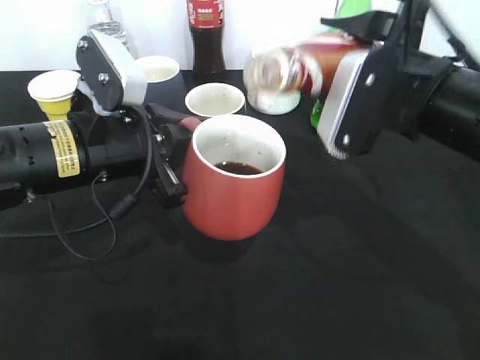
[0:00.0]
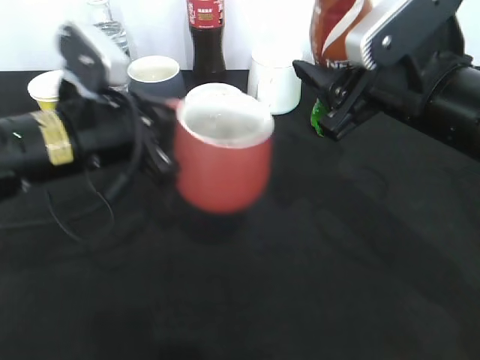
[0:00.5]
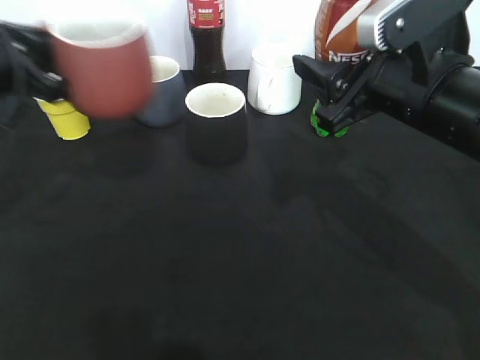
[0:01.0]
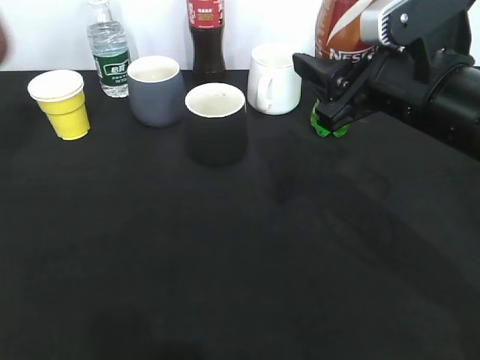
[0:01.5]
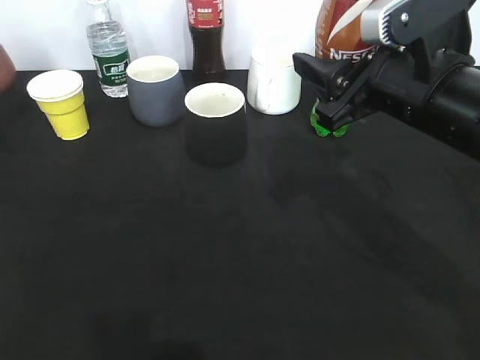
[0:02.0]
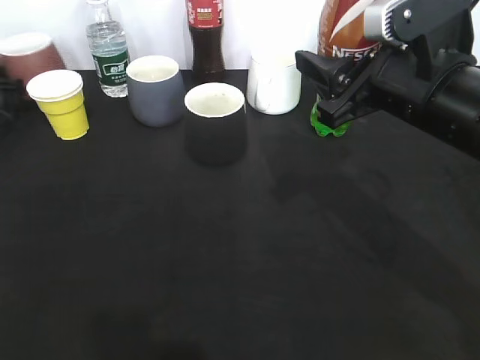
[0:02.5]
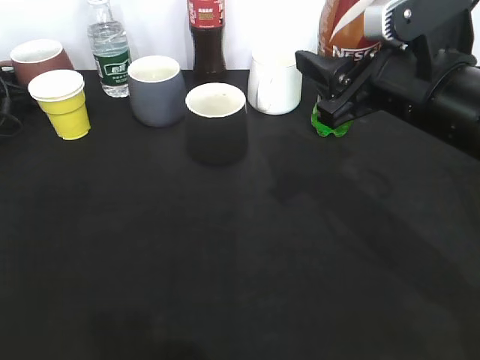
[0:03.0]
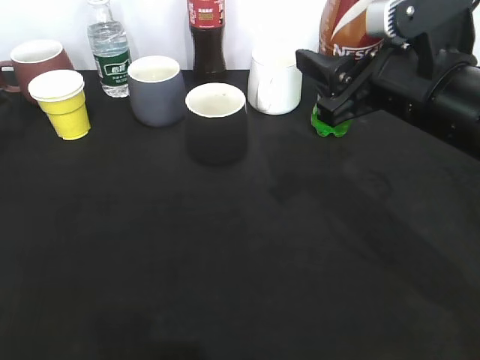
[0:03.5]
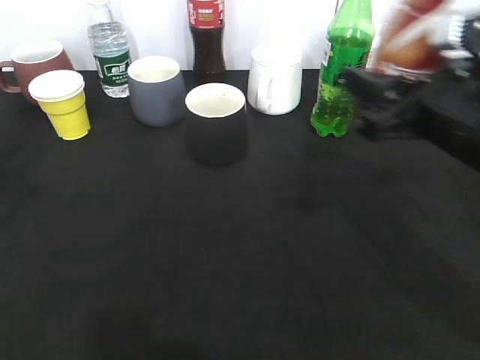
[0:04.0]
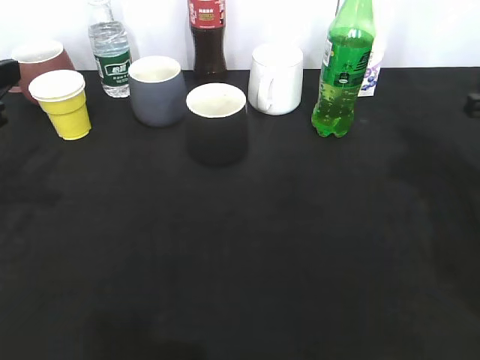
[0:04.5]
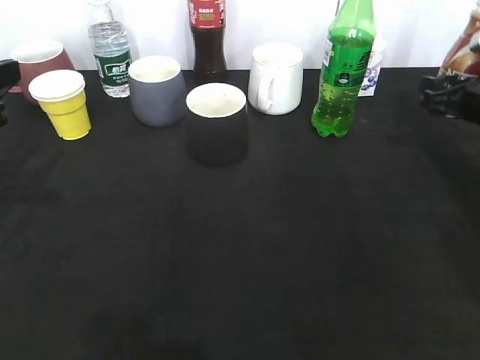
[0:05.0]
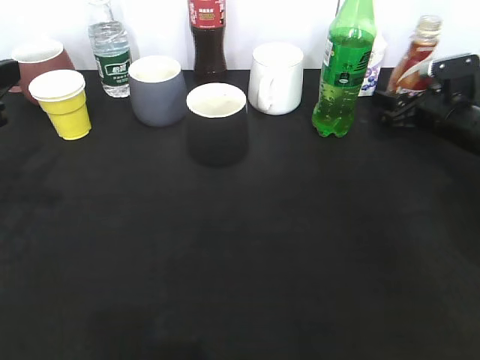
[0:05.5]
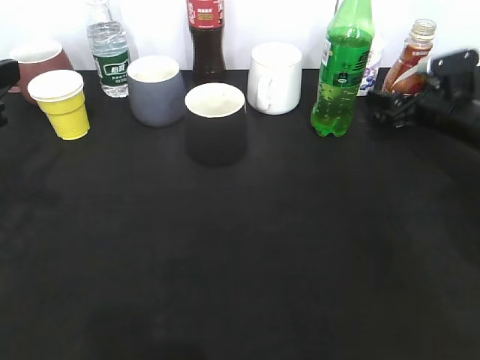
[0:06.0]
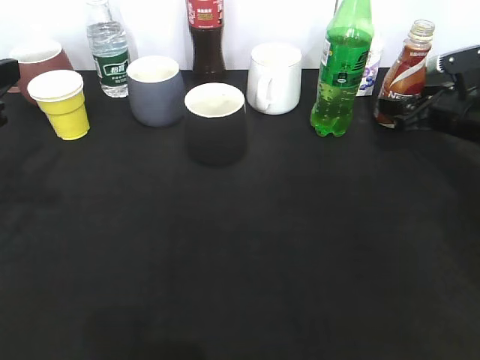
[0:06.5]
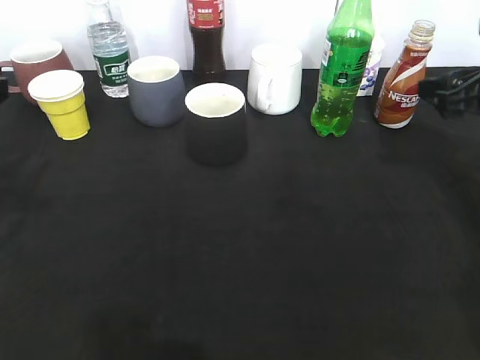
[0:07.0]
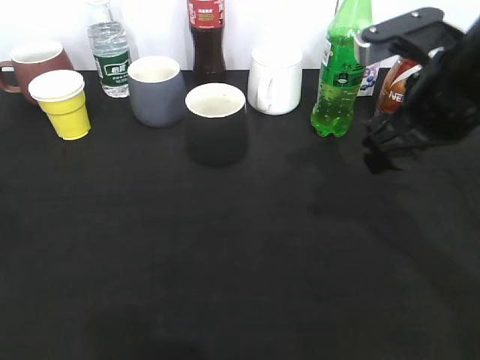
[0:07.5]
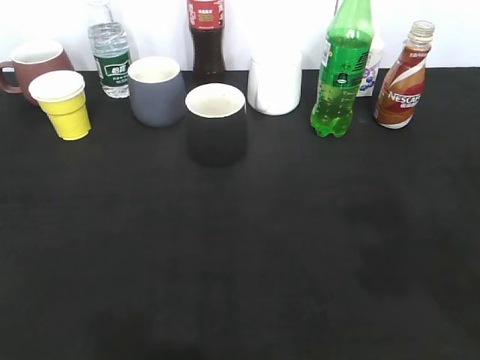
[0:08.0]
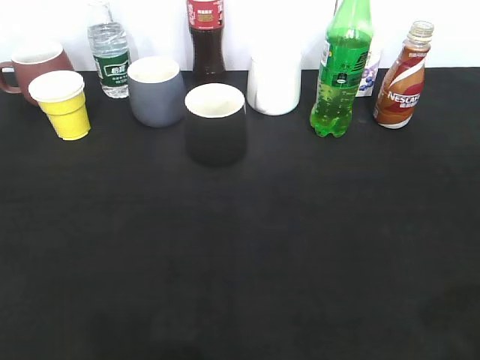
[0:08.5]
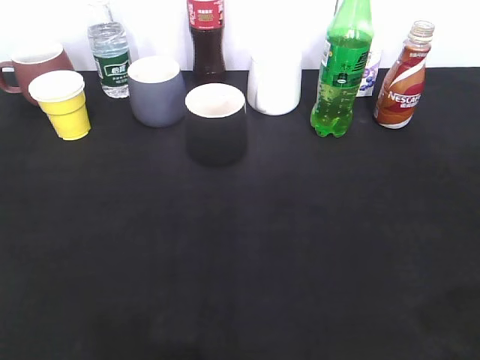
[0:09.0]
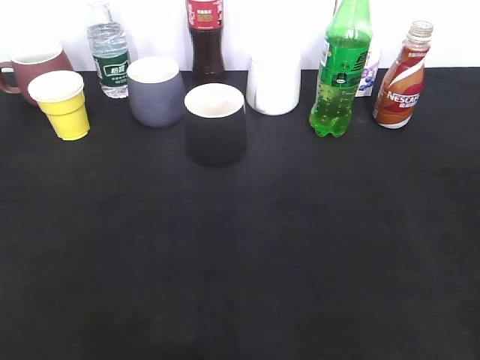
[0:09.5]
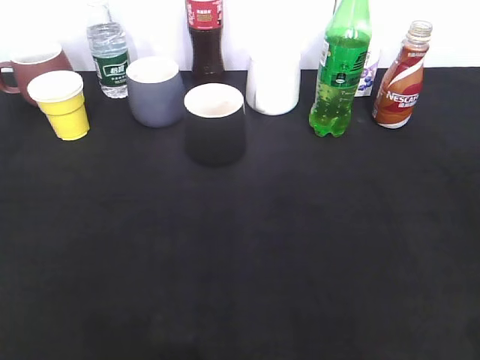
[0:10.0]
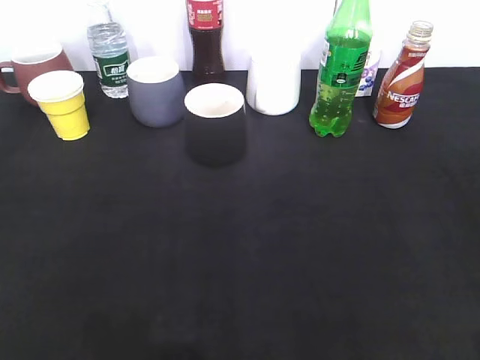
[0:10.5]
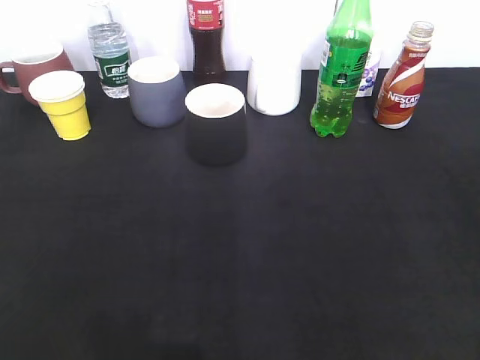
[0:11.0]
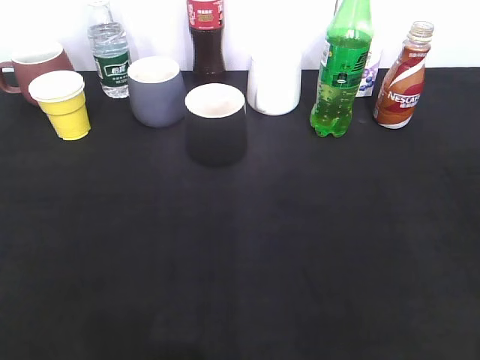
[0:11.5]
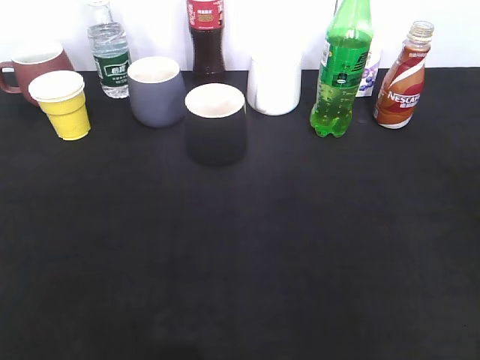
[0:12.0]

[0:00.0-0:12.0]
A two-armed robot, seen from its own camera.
Step, 0:00.5 to 0:03.0: Place the red cup on the table with left gripper.
Step, 0:03.5 to 0:05.5: Place the coffee bottle on the table with right gripper.
0:00.0 to 0:02.0: The left gripper heads to the left and forward, covering some 35 cm.
0:02.0 to 0:04.0: The left gripper travels backward, to the right and upward by roughly 25 cm, and opens up.
0:04.0 to 0:06.0: The right gripper goes approximately 25 cm forward, downward and to the right, and opens up.
0:06.0 to 0:08.0: The right gripper shifts roughly 40 cm backward and upward, and closes up, while the left gripper shifts roughly 20 cm backward and upward.
0:08.0 to 0:10.0: The left gripper shifts about 5 cm downward; the right gripper shifts some 15 cm backward, downward and to the right.
0:10.0 to 0:12.0: The left gripper closes its fingers.

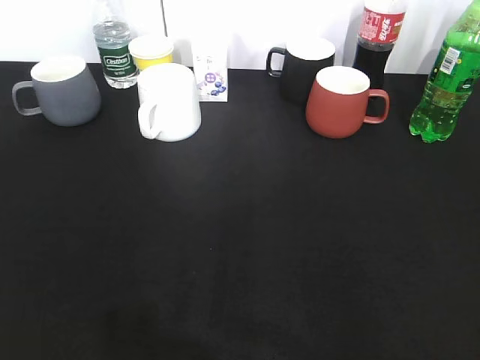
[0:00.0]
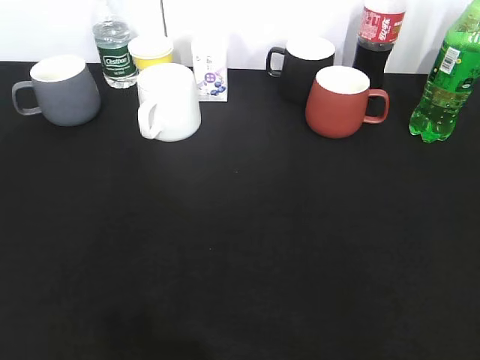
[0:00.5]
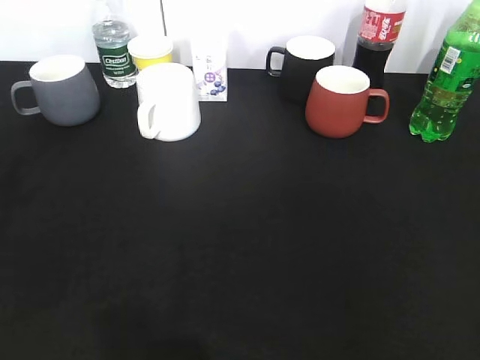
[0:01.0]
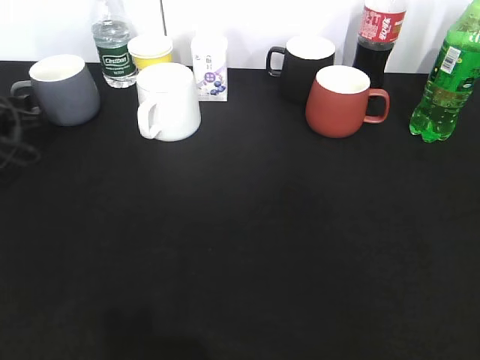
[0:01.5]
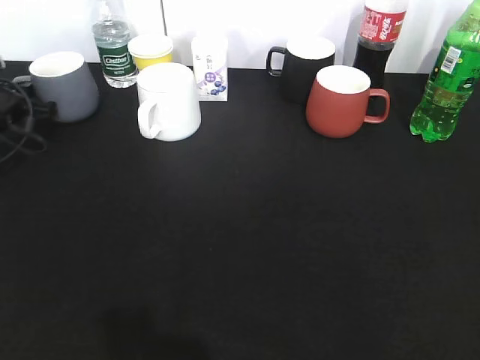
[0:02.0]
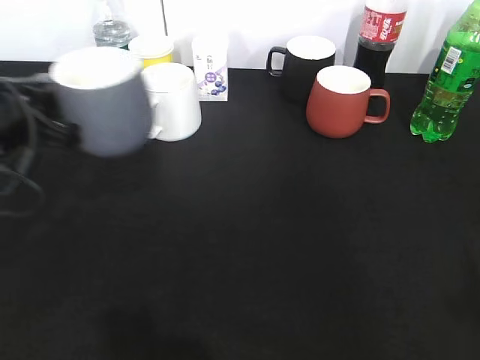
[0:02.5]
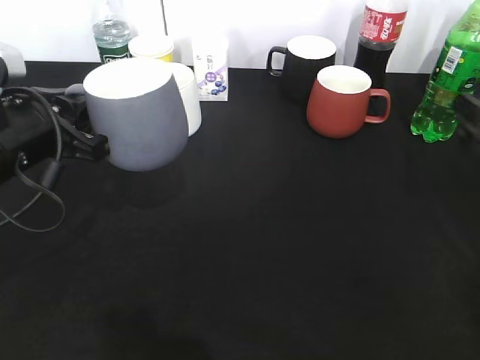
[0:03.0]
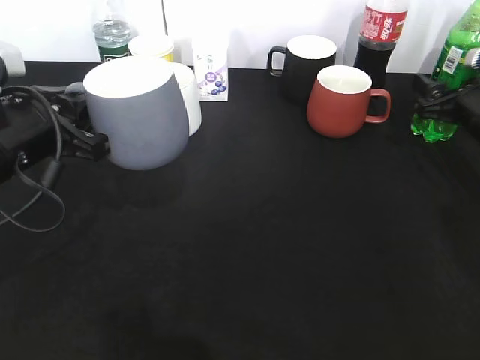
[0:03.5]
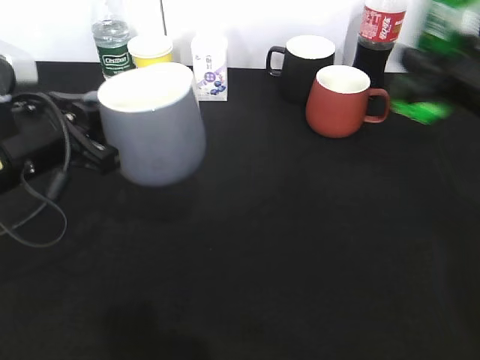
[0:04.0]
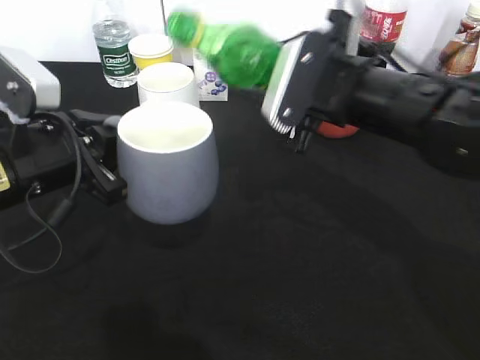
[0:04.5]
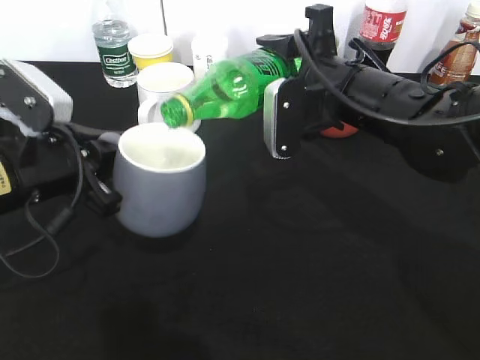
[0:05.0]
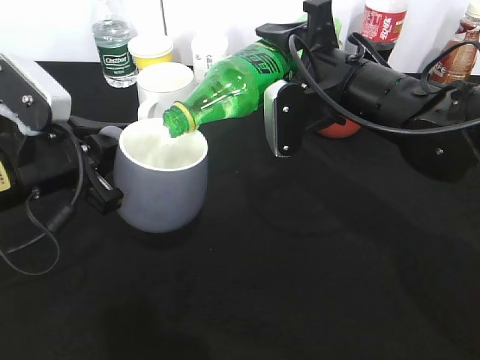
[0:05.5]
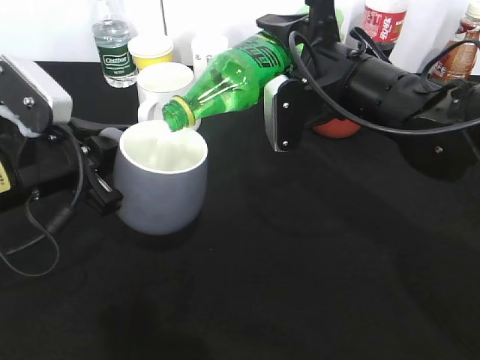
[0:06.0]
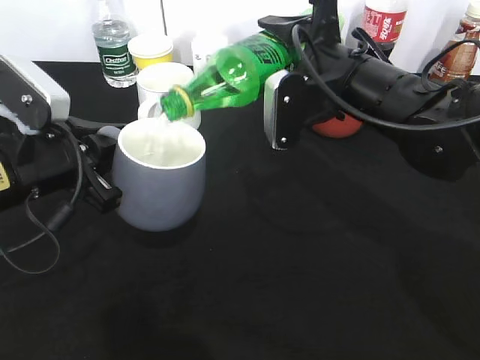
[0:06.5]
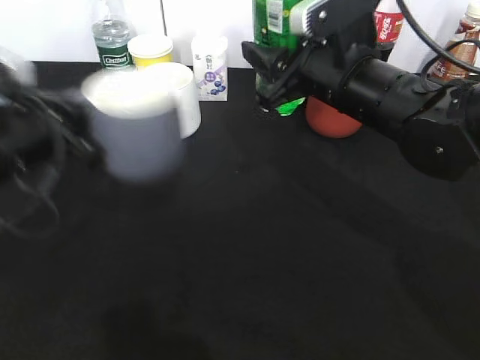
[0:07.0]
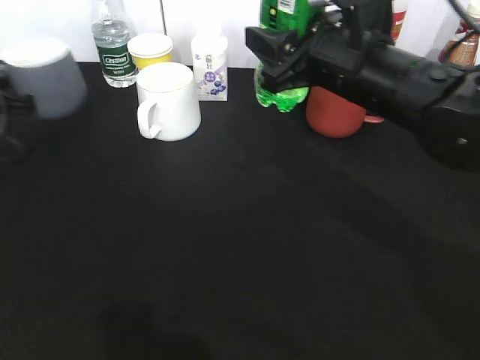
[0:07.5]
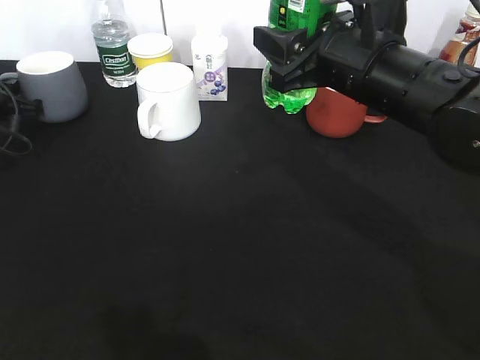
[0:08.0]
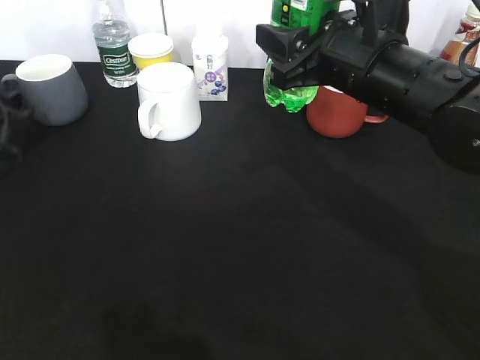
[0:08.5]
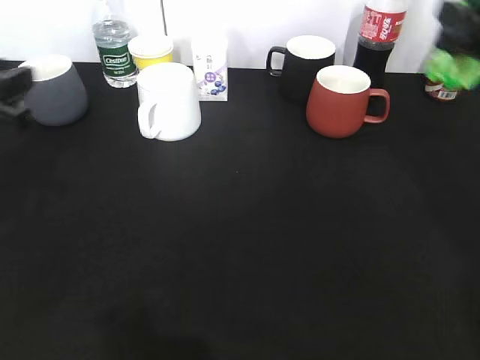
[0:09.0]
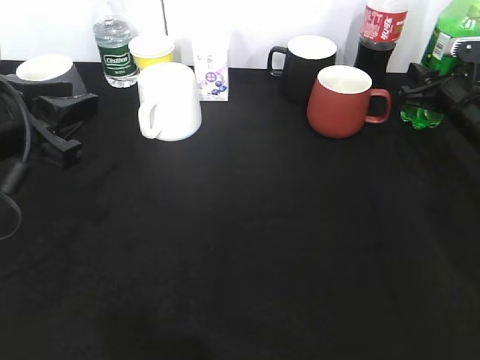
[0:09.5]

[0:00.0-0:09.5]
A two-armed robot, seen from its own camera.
Step, 0:02.0 to 0:02.5: Lift the grey cup with left gripper.
Step, 0:03.0 to 0:03.5: Grasp the bottle with sprite with right gripper.
Step, 0:04.0 to 0:06.5: Pour the sprite from bottle to cup with right gripper.
0:00.0 to 0:02.0: The left gripper is displaced forward by approximately 40 cm, and closes up.
0:02.0 to 0:04.0: The left gripper travels backward, to the right and upward by about 25 cm; the right gripper heads forward, covering some 30 cm, and closes.
0:04.0 to 0:05.5: The right gripper goes roughly 15 cm to the left.
0:05.5 to 0:07.5: The left gripper heads to the left and forward, covering about 20 cm.
0:07.5 to 0:09.5: The right gripper heads to the right, downward and forward, covering approximately 25 cm, while the left gripper shifts roughly 20 cm backward, to the right and upward, and opens up.

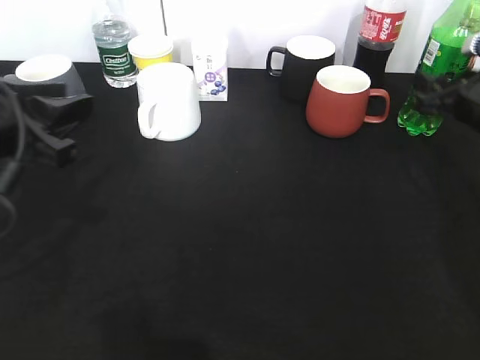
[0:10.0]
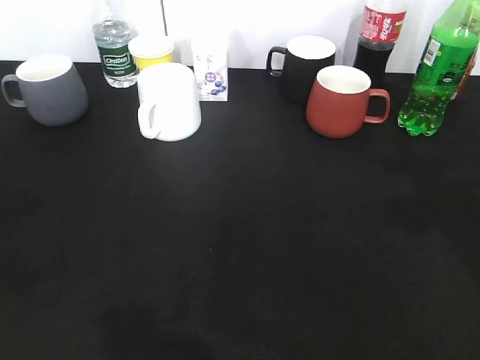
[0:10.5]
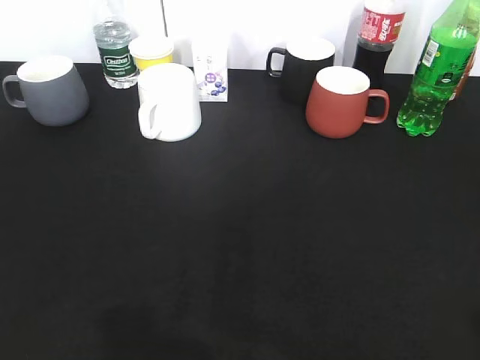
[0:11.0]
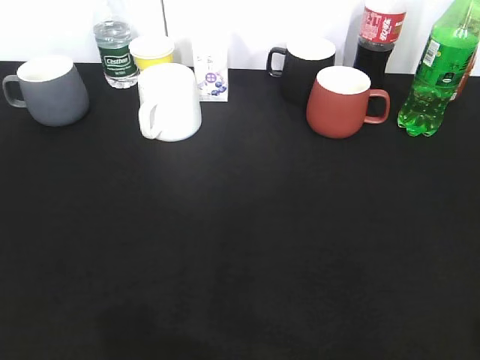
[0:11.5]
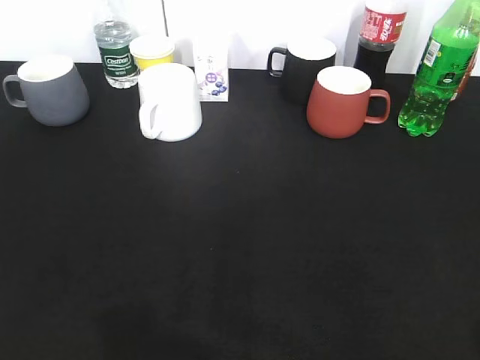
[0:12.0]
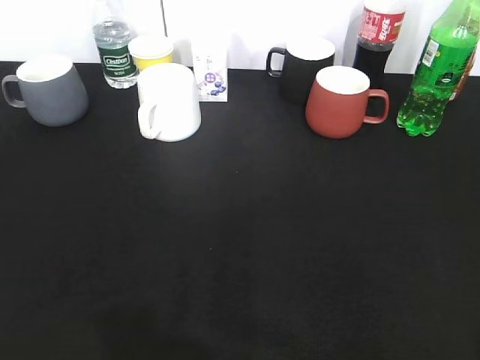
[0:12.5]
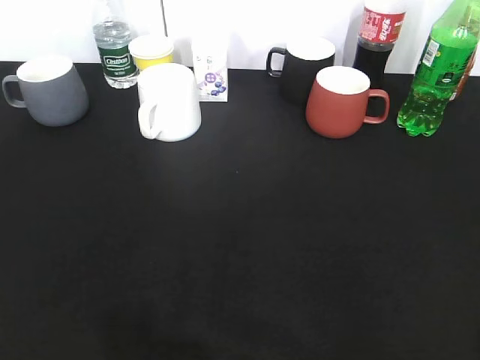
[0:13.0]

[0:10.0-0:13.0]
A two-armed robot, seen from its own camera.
0:10.0 to 0:11.5: The left gripper shifts about 20 cm backward and to the left, while the right gripper goes roughly 35 cm backward.
